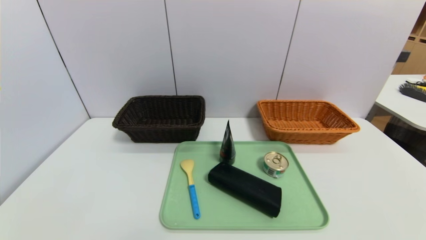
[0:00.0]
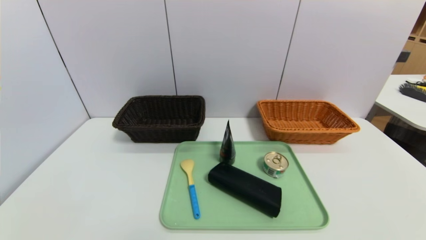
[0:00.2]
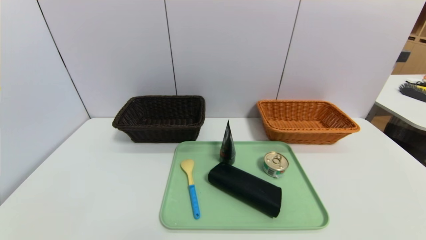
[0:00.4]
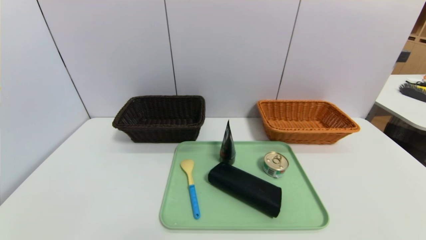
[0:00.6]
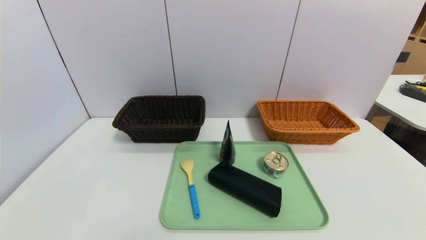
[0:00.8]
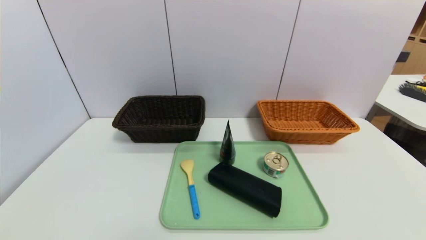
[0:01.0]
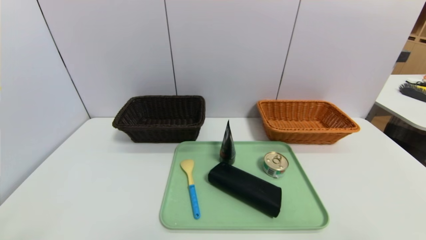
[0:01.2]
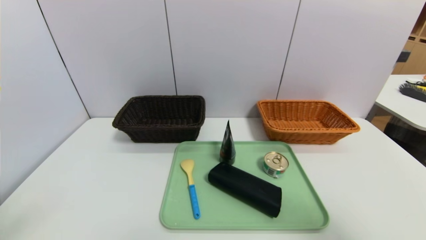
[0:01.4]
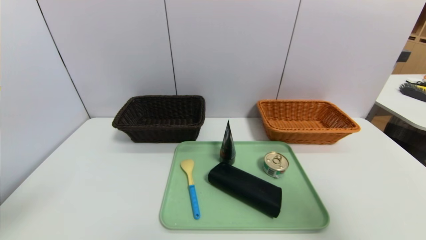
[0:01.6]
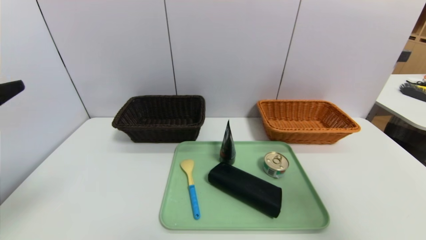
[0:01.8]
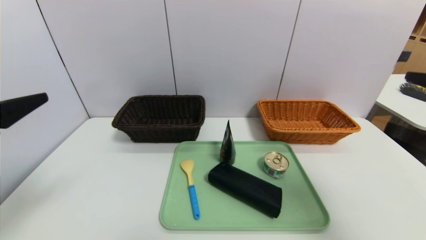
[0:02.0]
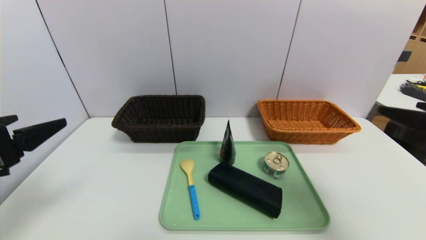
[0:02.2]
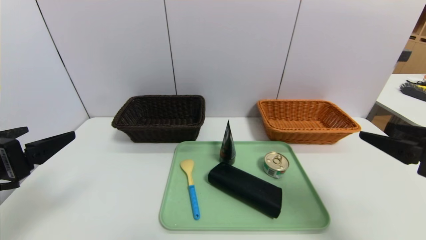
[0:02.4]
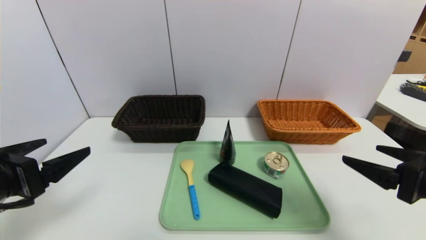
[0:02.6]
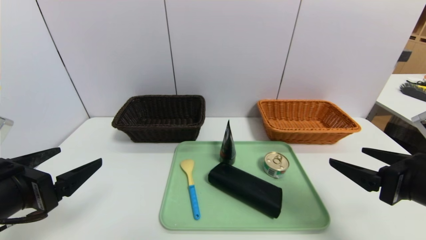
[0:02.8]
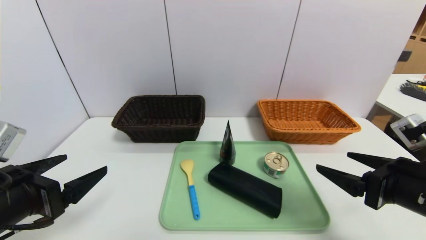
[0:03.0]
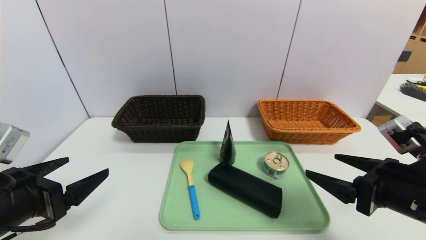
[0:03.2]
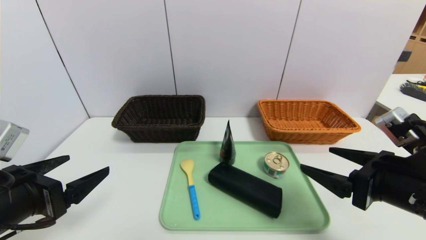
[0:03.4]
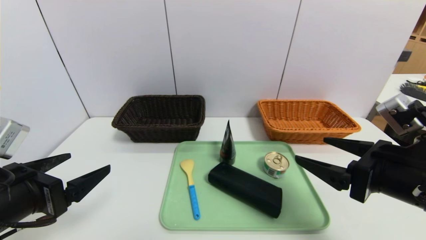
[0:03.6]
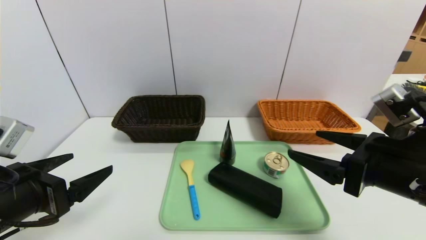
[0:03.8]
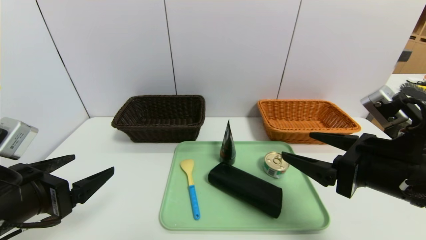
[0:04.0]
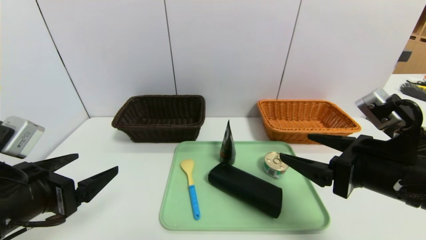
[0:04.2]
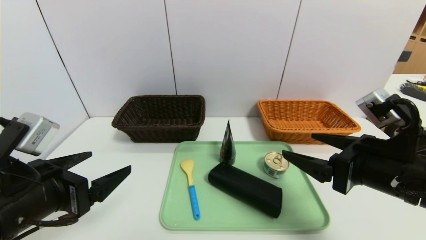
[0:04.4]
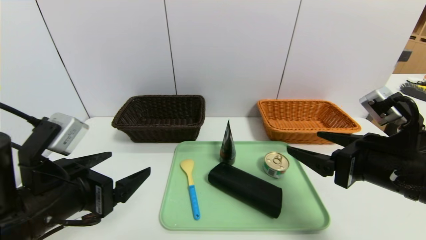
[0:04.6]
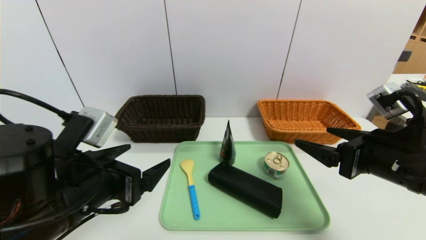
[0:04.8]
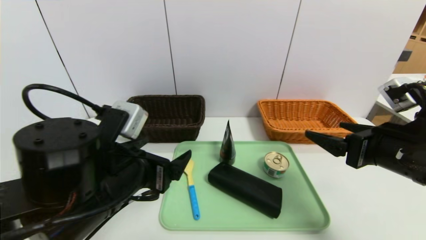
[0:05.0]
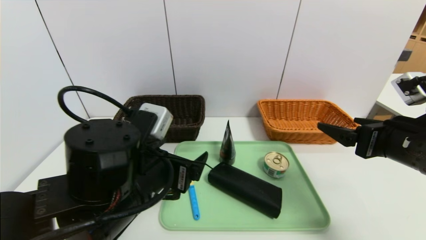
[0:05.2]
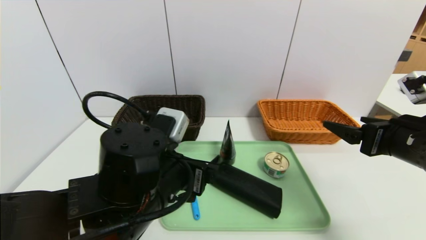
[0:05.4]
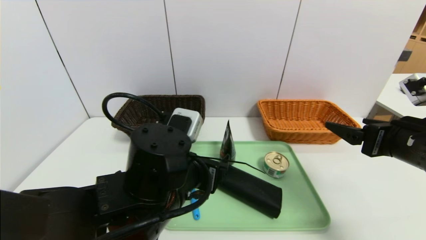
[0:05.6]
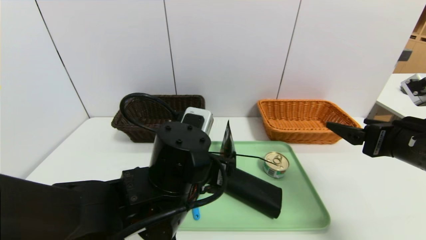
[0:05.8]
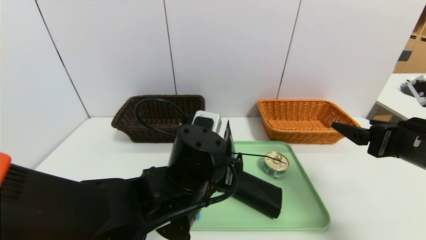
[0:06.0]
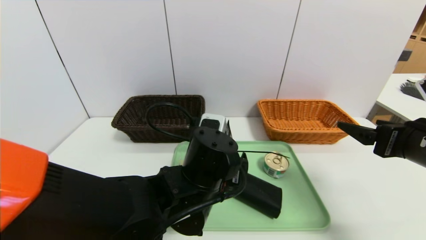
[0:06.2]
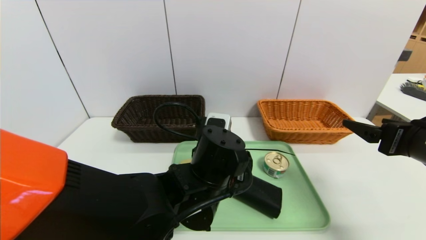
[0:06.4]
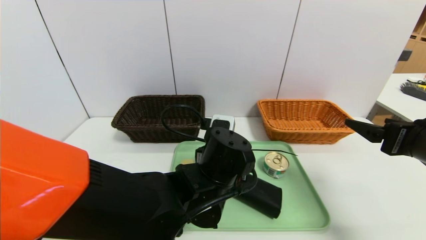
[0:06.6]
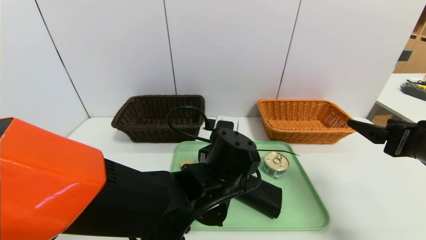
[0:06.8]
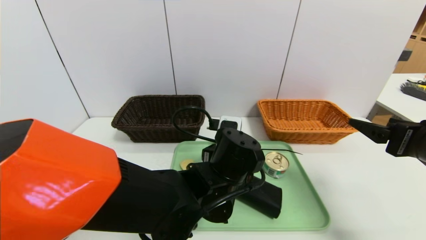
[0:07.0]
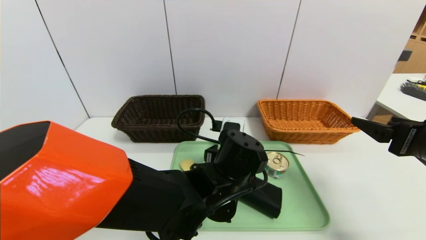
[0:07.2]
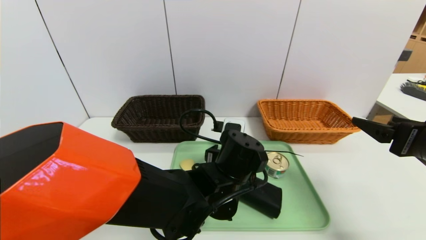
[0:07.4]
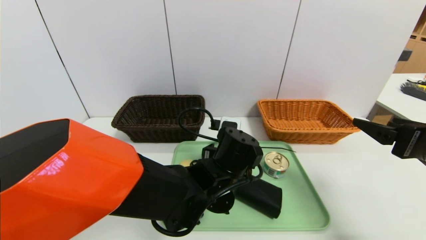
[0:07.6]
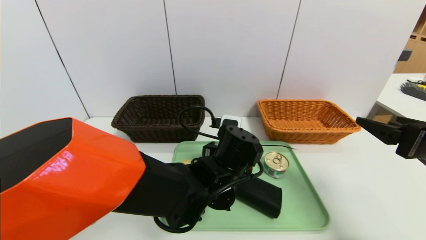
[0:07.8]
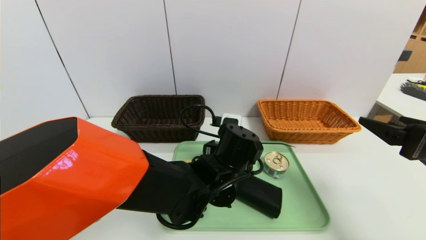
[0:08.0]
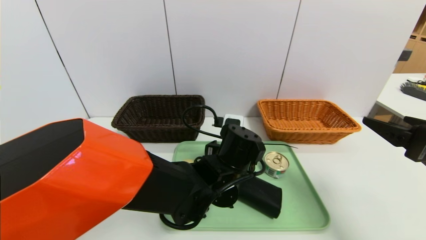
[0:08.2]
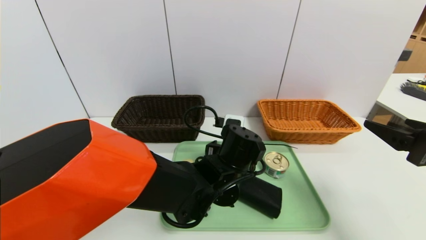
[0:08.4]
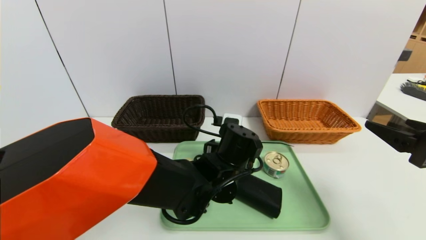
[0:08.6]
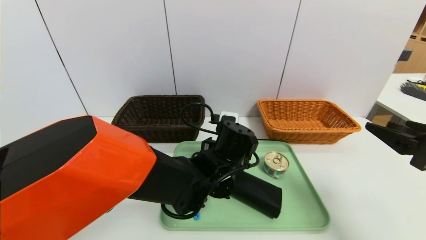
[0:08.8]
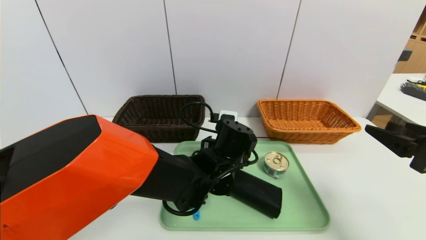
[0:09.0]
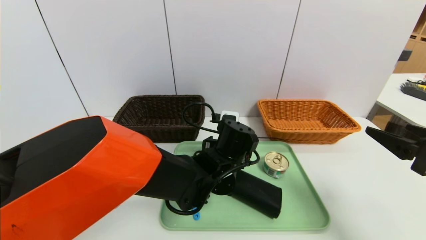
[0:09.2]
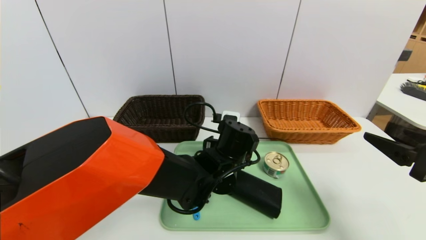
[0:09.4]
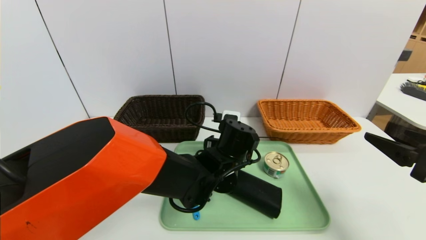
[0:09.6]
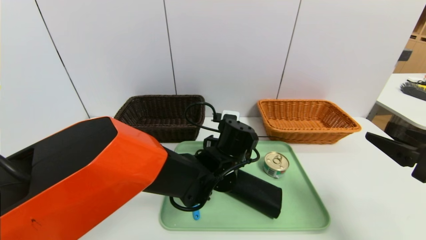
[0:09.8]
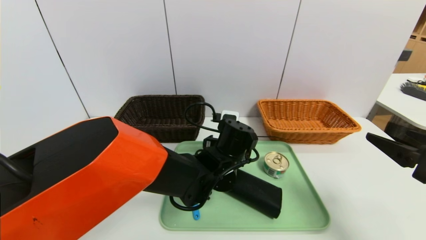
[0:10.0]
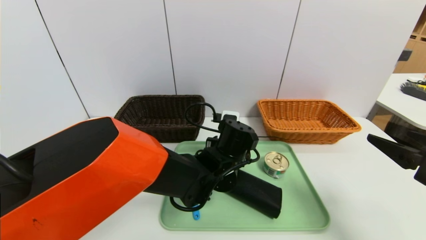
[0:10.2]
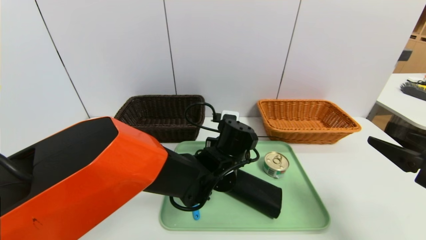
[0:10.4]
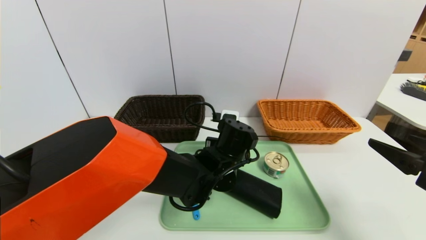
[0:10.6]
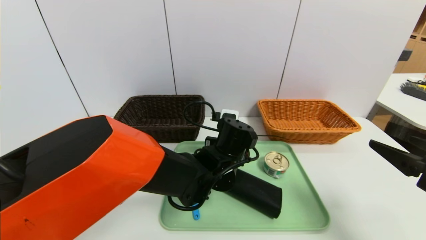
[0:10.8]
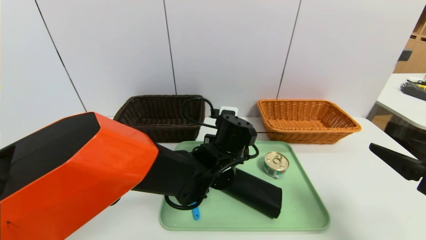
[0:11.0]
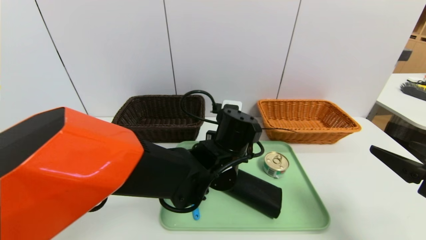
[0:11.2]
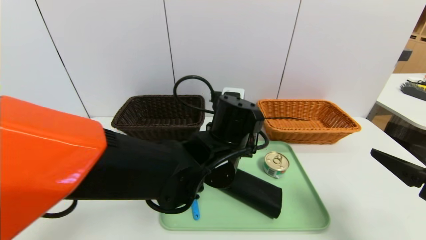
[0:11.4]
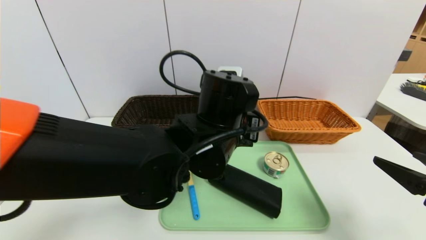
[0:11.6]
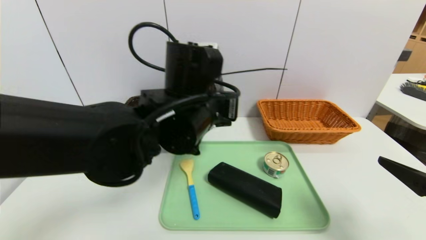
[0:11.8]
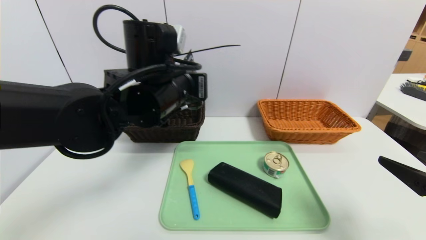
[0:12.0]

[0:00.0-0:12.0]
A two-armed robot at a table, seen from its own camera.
Task of the whole recording: place the food in the right basket with the right gripper, and place the non food items in the left basket with the left gripper.
0:00.0 to 0:01.6: Both grippers travel together upward, some 25 cm.
0:01.6 to 0:03.0: The right gripper heads downward and forward, covering roughly 15 cm. The left gripper is displaced downward by some 10 cm.
0:03.0 to 0:04.4: The right gripper shifts by roughly 5 cm.
0:04.4 to 0:06.0: The right gripper shifts some 5 cm to the right. The left gripper shifts approximately 20 cm to the right.
0:06.0 to 0:07.6: The left gripper heads forward and to the right, covering some 5 cm.
0:07.6 to 0:09.0: The grippers move only a little.
0:09.0 to 0:10.4: The left gripper closes up.
0:10.4 to 0:12.0: The left gripper shifts about 20 cm upward and to the left.

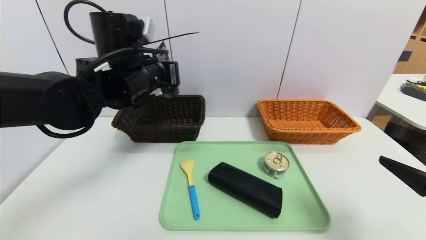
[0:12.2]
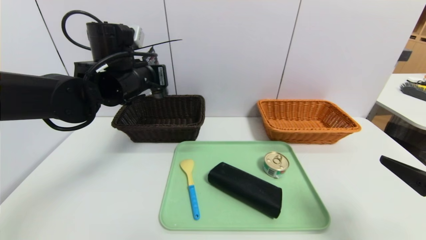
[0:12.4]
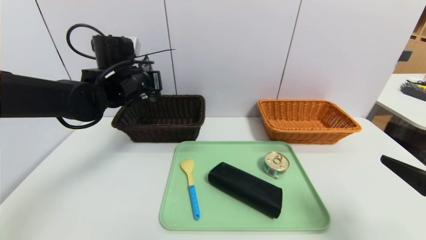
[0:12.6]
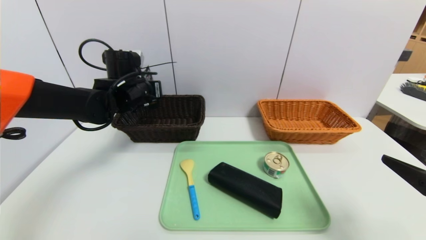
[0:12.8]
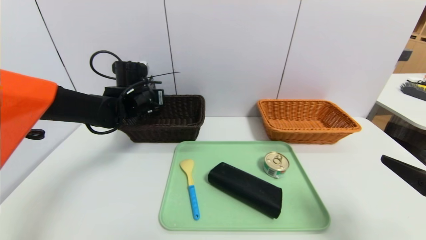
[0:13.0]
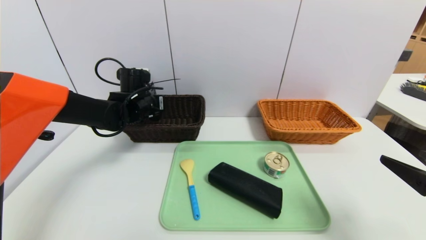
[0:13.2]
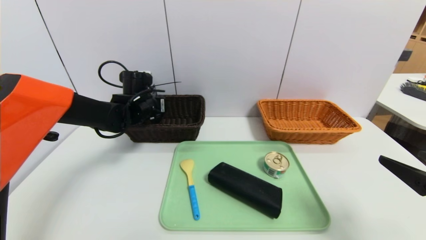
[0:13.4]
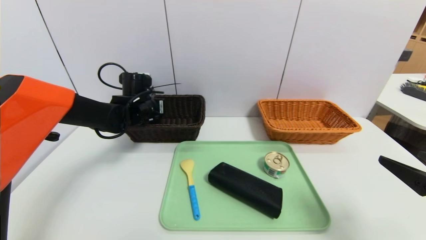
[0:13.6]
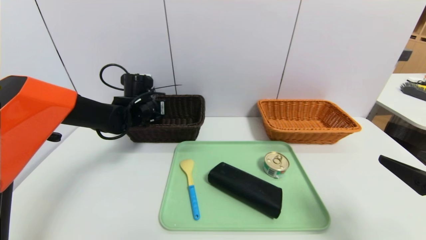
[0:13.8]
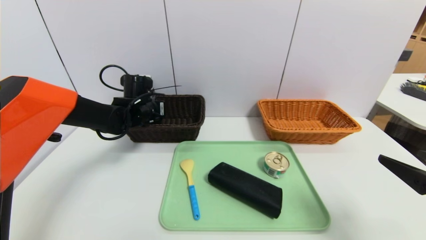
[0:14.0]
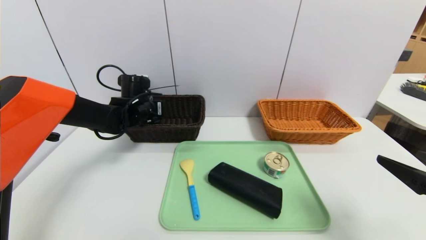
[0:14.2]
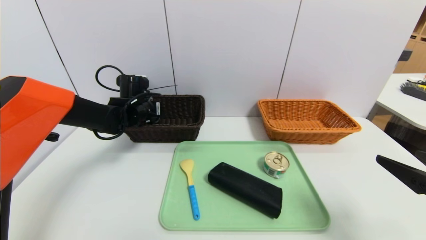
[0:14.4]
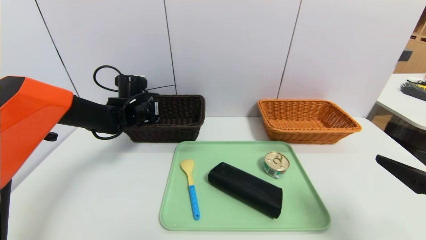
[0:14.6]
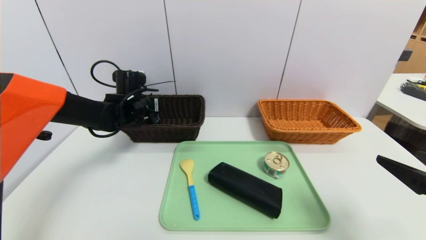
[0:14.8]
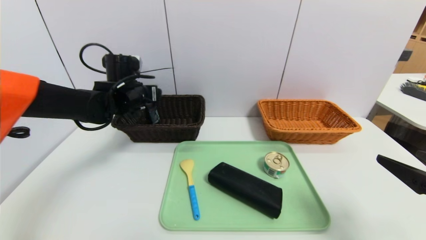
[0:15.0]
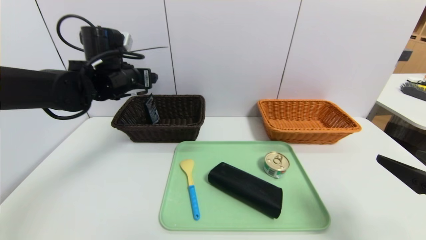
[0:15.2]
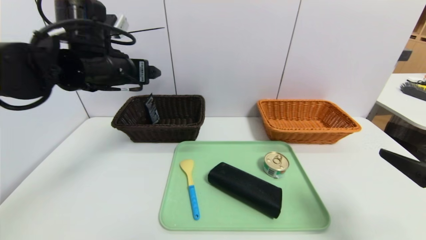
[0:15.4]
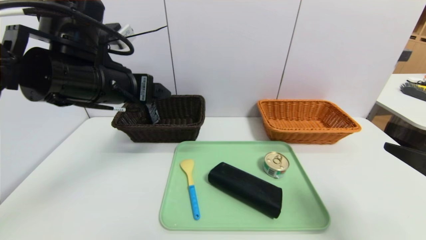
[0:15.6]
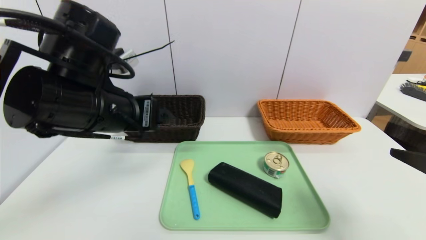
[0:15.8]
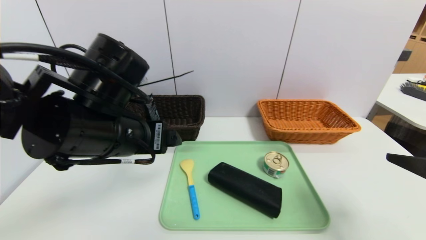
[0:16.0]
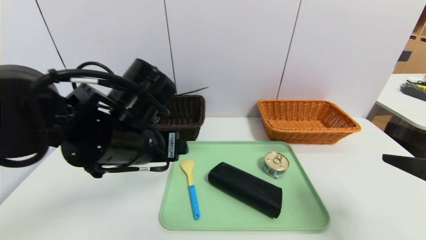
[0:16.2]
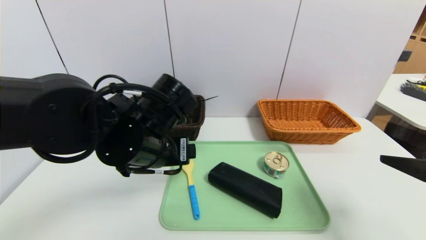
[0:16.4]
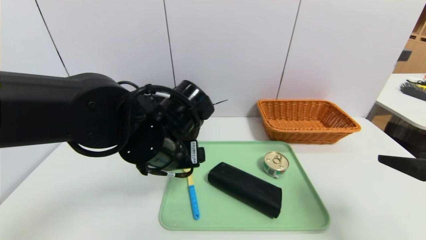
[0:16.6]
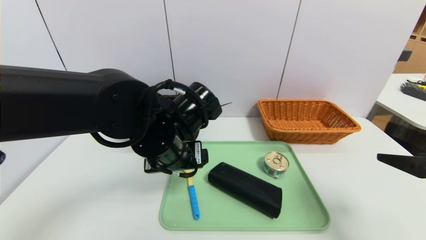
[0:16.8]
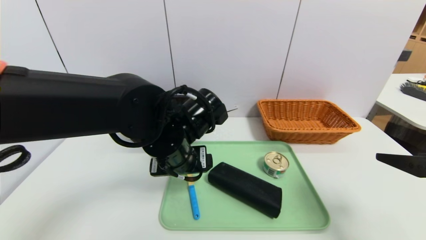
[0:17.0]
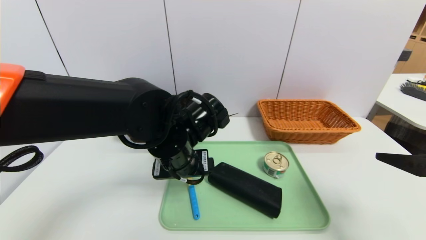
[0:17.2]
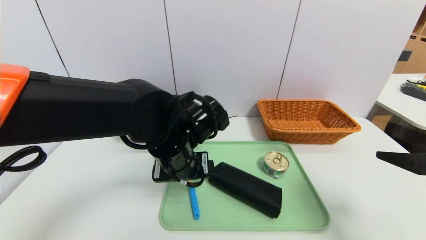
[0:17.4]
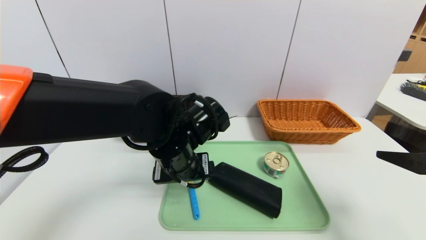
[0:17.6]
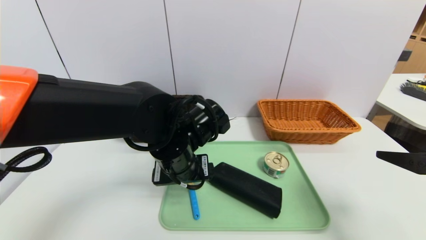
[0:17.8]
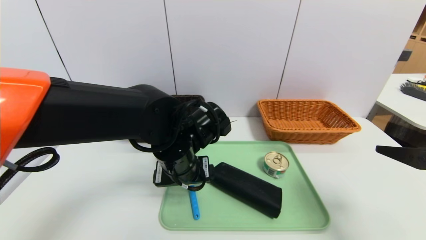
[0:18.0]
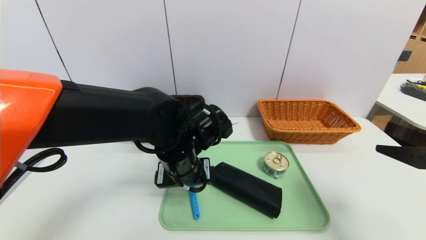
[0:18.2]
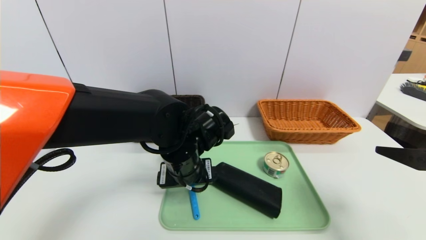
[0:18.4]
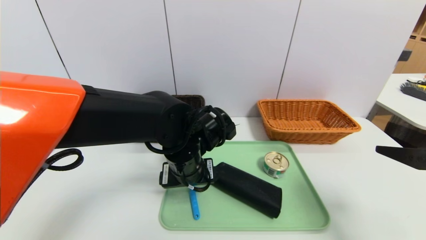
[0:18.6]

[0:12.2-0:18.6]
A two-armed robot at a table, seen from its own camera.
Task of the whole recording: place the food in the right basket with the right gripper, and place the non food items in the left basket with the left gripper.
Step, 0:12.2 to 0:14.6: Grasp the soft cleanser and put it in the left basket.
0:12.2 to 0:13.8: The left gripper heads downward, forward and to the left, covering approximately 20 cm.
0:13.8 to 0:15.4: The left gripper moves upward and backward, about 20 cm, and opens its fingers.
0:15.4 to 0:17.0: The left gripper goes about 20 cm to the right, downward and backward.
0:17.0 to 0:18.6: The grippers stay close to where they were, moving slightly.
